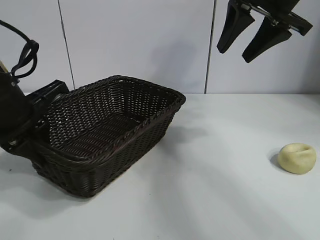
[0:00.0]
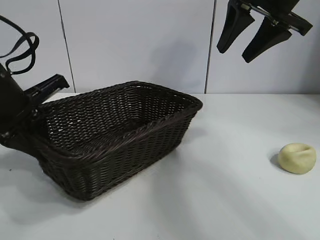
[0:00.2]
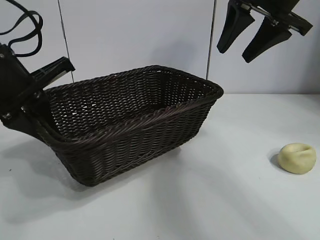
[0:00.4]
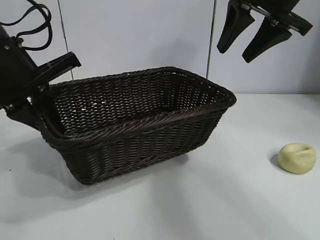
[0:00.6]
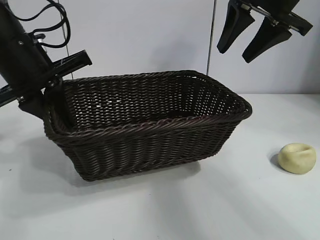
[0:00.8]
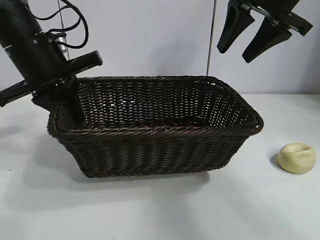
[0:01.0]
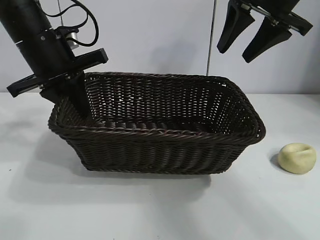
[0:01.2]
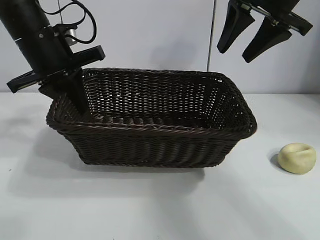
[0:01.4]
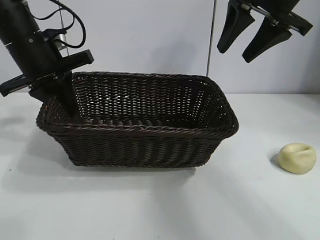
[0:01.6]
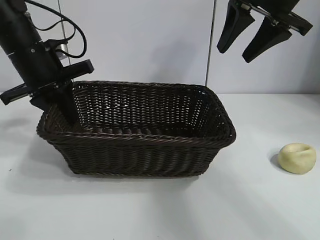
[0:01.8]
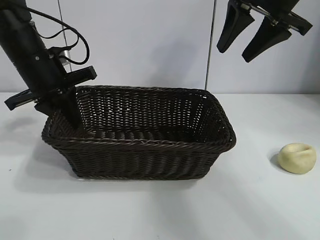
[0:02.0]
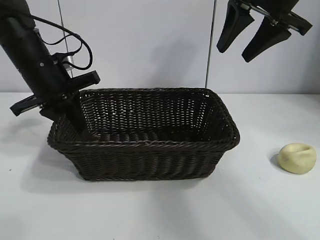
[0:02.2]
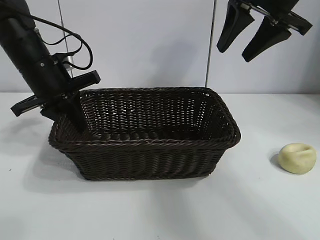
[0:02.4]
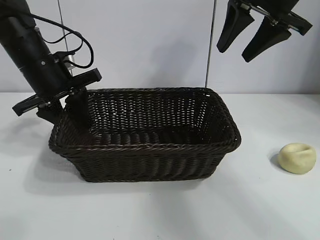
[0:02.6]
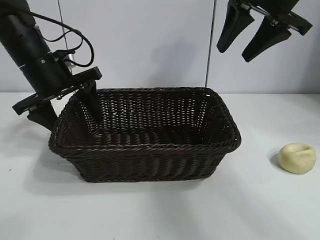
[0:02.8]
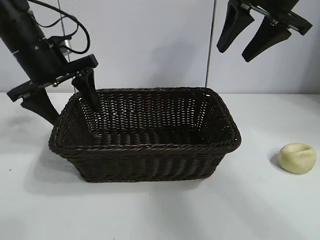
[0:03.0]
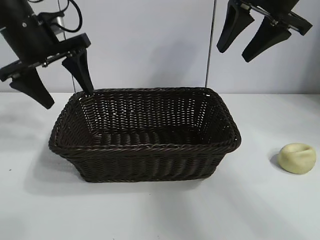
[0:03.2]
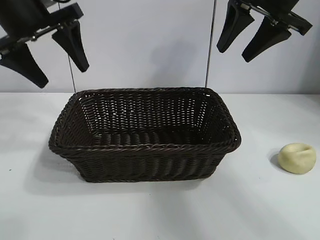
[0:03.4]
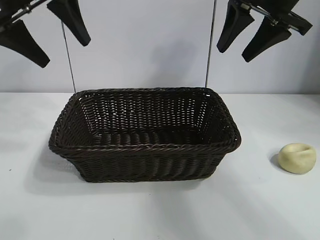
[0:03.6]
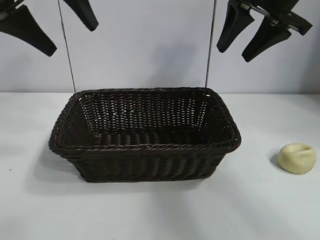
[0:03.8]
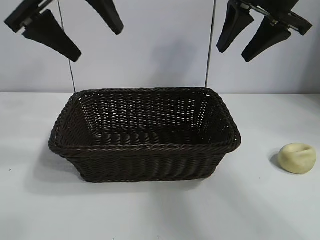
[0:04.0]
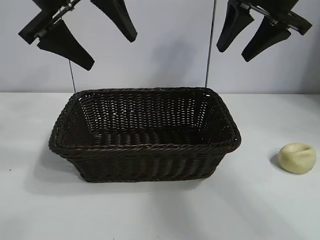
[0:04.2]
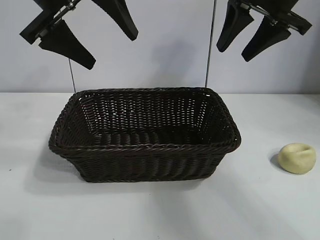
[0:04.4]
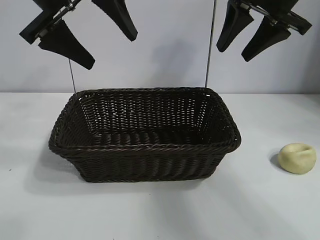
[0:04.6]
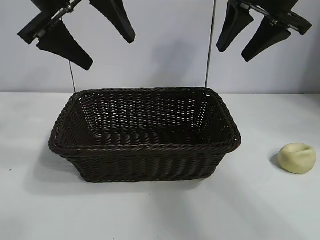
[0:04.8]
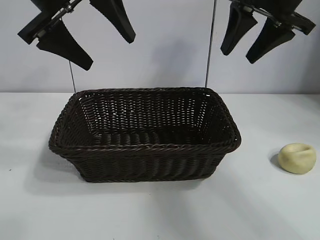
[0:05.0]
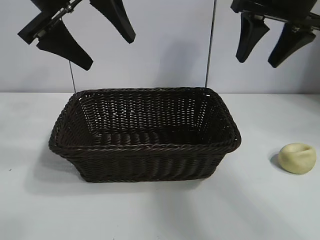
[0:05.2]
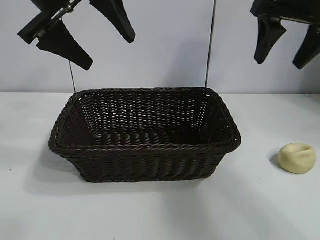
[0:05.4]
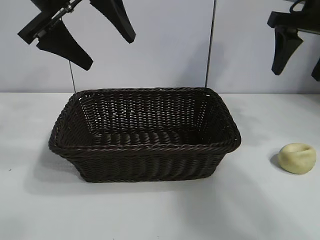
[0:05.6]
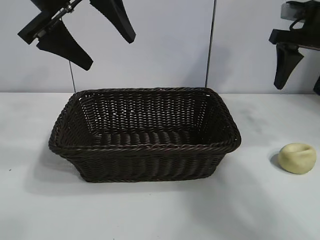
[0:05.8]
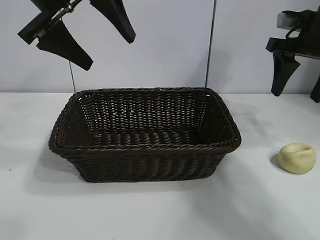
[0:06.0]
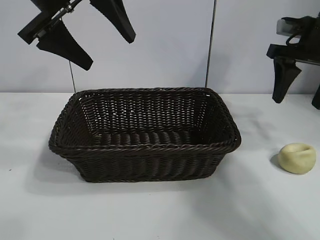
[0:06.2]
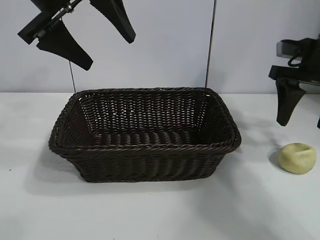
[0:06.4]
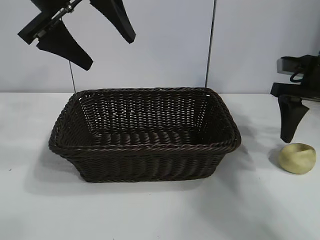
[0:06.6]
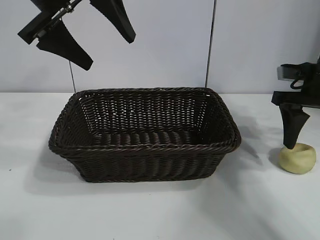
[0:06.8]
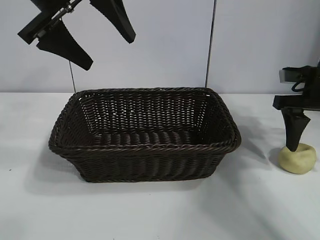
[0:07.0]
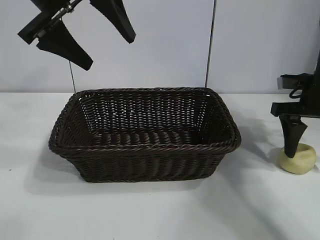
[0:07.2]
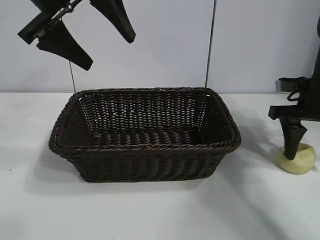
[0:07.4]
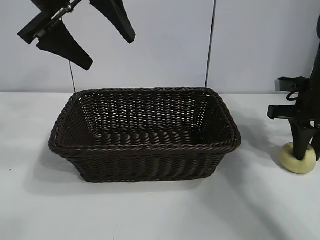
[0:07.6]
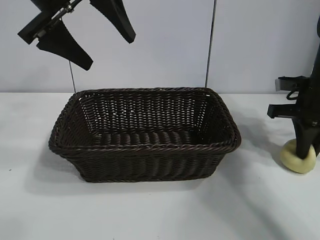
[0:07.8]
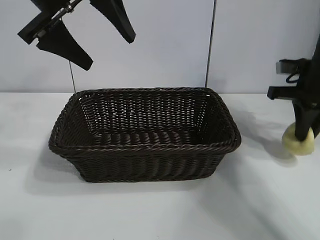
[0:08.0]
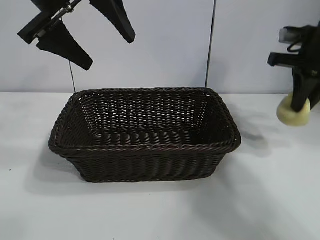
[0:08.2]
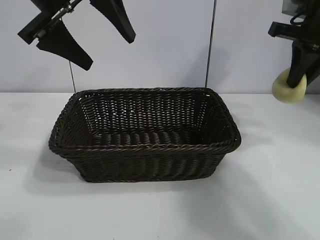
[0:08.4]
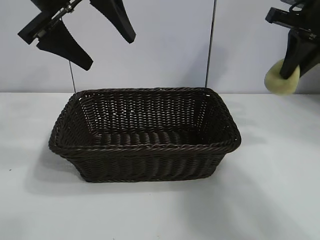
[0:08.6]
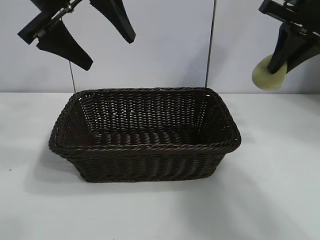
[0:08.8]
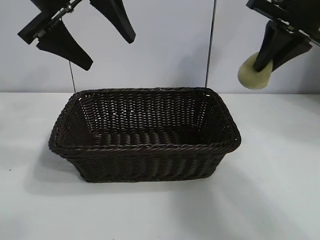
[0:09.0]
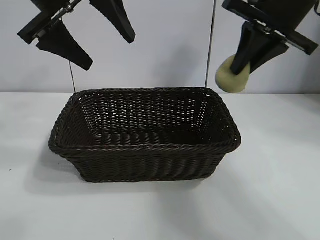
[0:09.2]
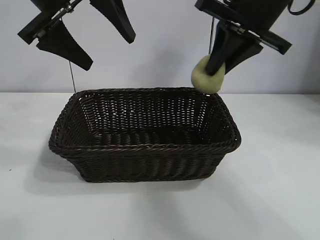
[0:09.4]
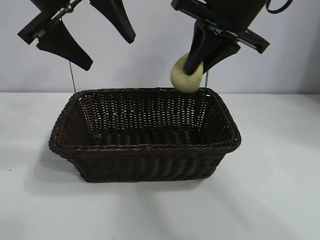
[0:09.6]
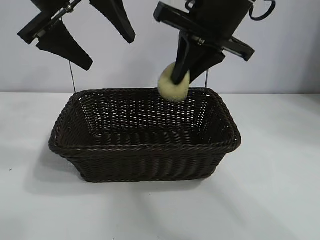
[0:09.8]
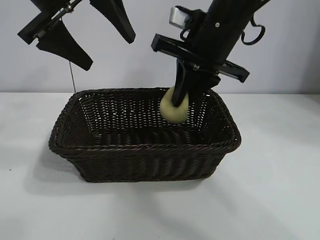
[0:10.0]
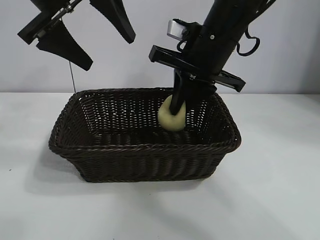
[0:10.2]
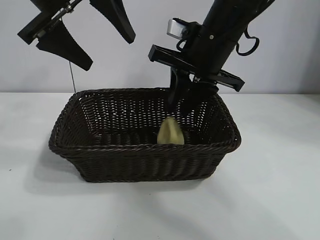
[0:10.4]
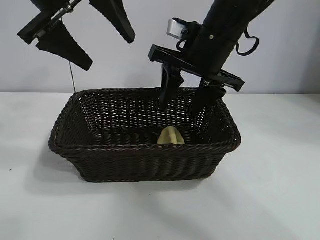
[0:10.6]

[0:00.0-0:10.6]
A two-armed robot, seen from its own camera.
Task of the whole recording: pick up the egg yolk pastry and put it into the basket.
Step, 0:00.0 to 0:02.6: Place the basket in the center of view with left gripper.
Step, 0:03.0 to 0:07.6: Grasp egg yolk pastry with right gripper.
Step, 0:08.0 to 0:10.6: Place the egg yolk pastry in the basket with right gripper.
